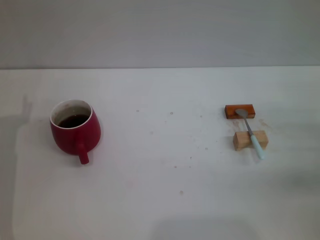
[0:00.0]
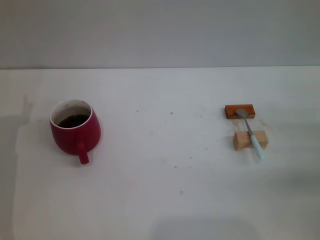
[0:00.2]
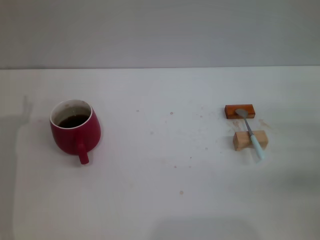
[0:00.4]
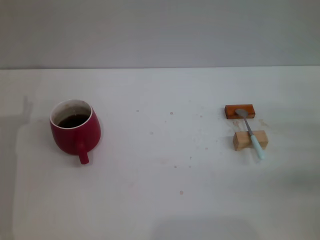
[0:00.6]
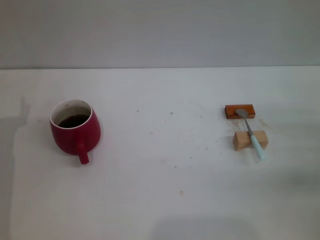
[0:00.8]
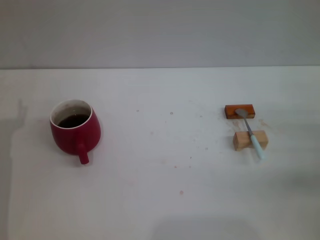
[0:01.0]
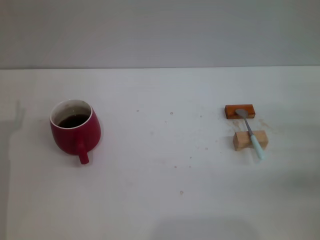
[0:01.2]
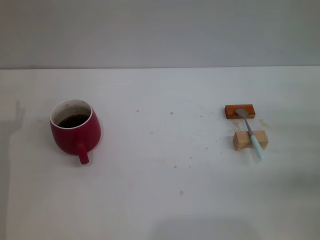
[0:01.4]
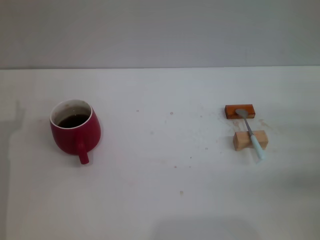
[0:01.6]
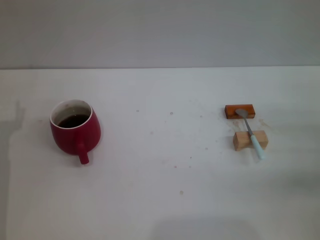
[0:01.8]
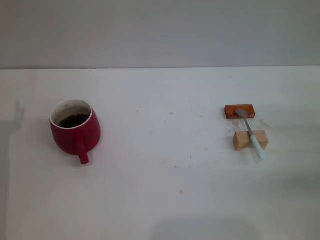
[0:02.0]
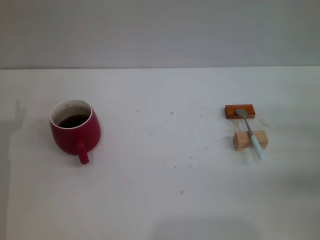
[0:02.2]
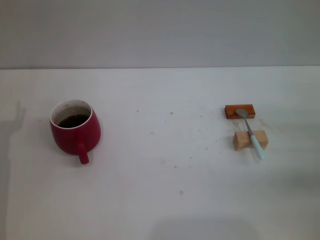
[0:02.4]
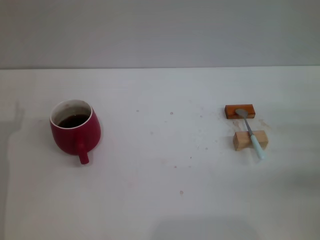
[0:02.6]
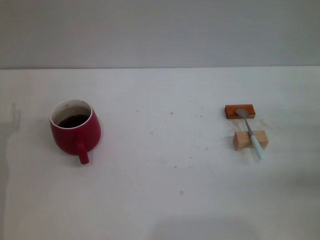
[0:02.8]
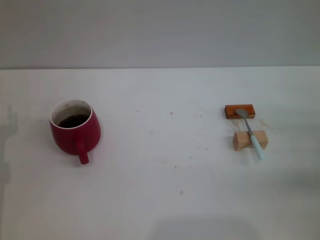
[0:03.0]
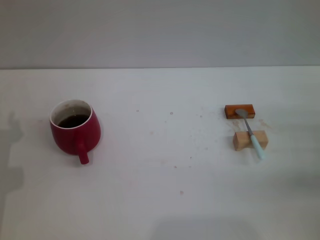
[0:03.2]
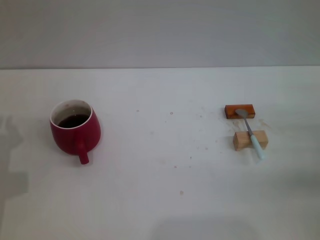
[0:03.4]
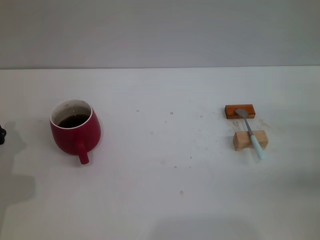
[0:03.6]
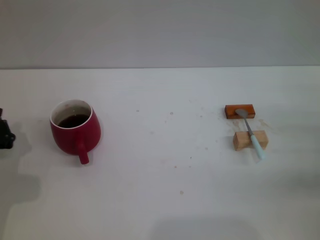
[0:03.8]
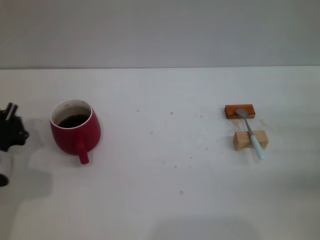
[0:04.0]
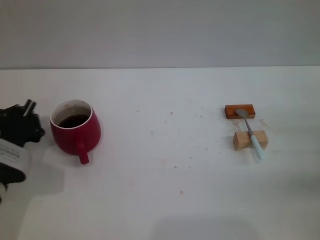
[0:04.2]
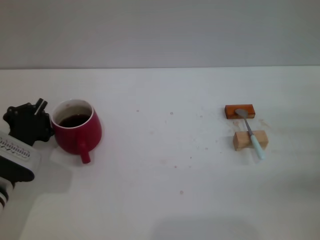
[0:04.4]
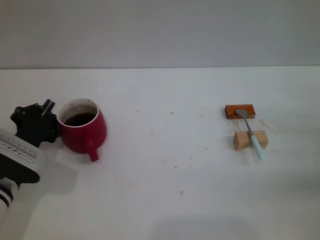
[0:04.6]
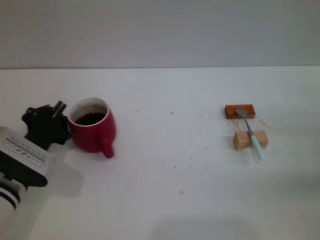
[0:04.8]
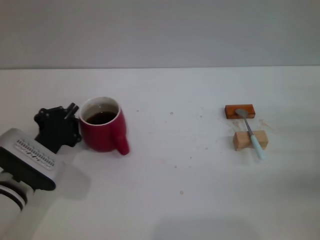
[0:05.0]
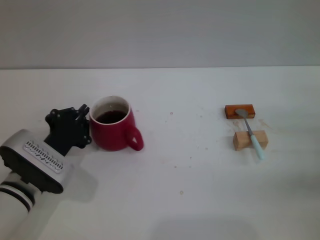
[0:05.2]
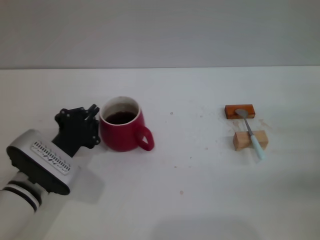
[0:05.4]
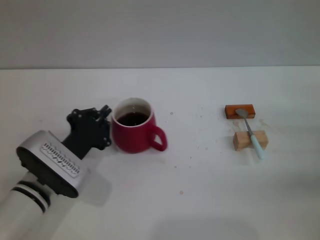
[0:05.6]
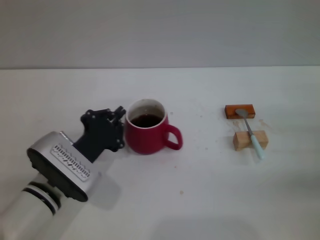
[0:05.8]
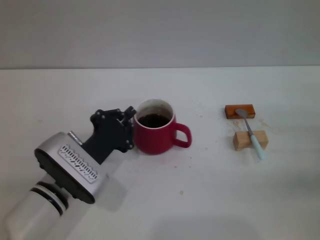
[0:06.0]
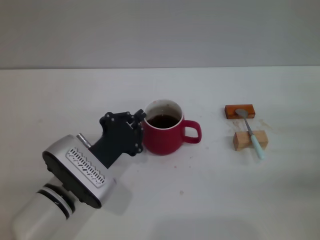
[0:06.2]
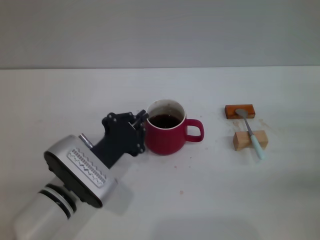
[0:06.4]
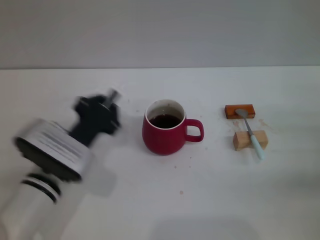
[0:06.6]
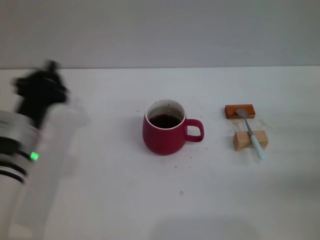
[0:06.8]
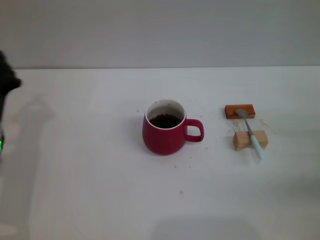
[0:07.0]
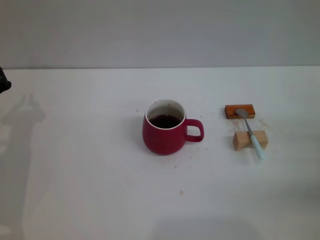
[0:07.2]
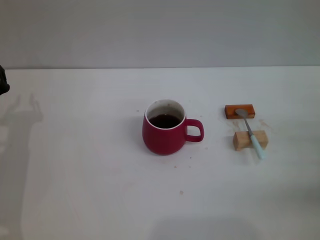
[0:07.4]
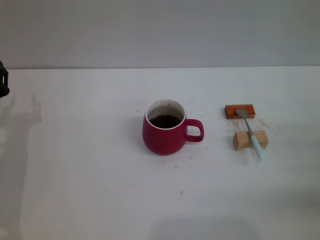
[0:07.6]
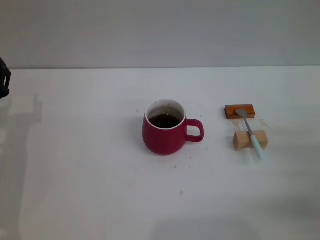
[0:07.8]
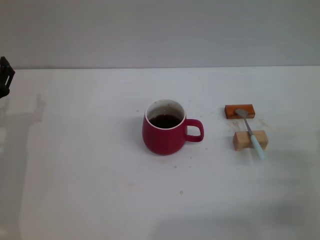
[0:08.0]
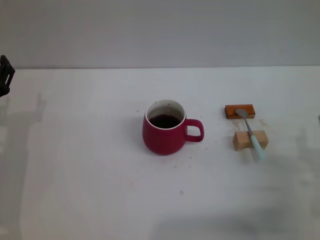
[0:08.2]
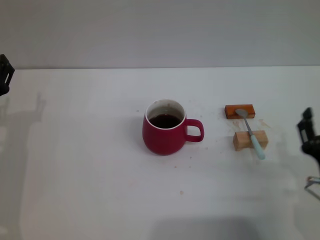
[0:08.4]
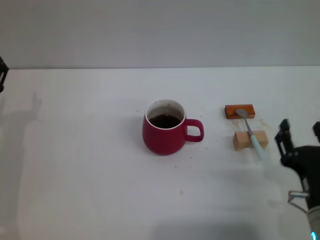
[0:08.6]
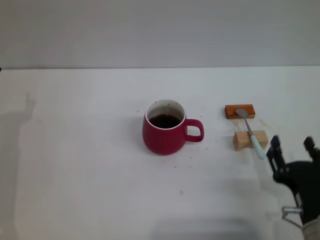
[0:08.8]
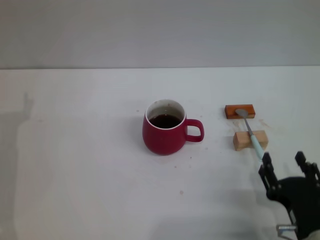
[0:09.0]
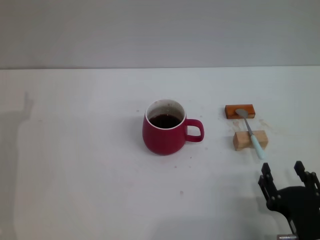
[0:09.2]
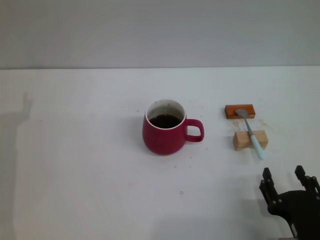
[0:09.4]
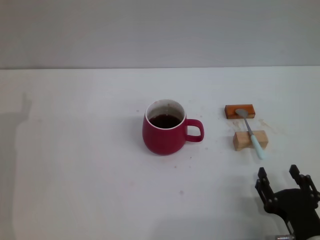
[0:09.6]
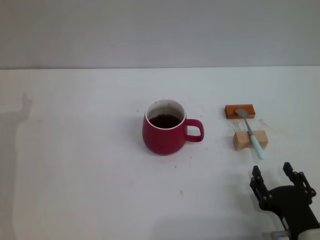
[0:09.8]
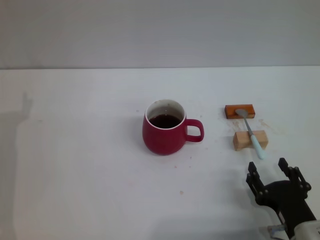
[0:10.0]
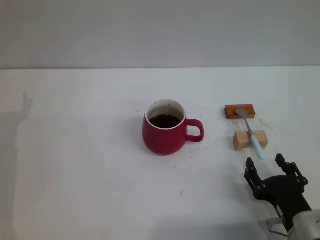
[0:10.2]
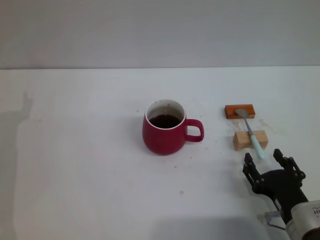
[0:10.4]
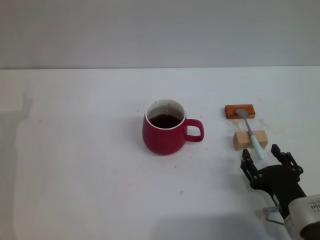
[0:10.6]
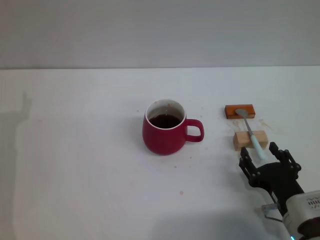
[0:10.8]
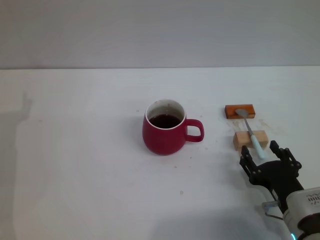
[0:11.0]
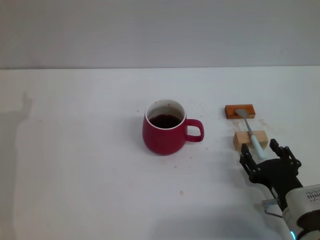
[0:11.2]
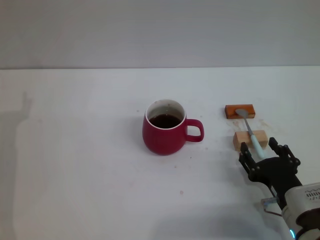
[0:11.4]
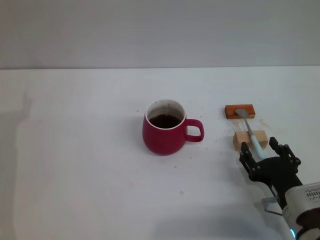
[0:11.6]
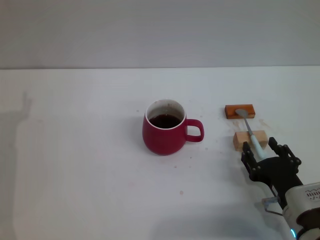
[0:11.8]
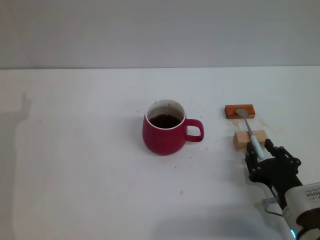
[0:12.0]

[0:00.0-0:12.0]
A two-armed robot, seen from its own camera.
Task of the whole recording: Move the red cup to the center, lift the blue spoon, stir it three times in the cup, and put the spoon into the cup.
Step, 0:00.0 to 0:06.6: Move the cup with coffee to the center of view with the left gripper.
0:03.0 to 0:04.4: The left gripper heads to the right, covering about 5 cm, and closes up.
0:04.4 to 0:06.0: The left gripper travels to the right by about 10 cm.
0:06.0 to 0:07.6: The left gripper is displaced to the left by about 10 cm, and opens its fingers.
0:07.6 to 0:09.0: The right gripper heads to the left and backward, covering some 20 cm.
0:09.0 to 0:10.4: The grippers stay close to where they were, moving slightly.
0:10.4 to 0:12.0: The grippers stay close to where they were, moving slightly.

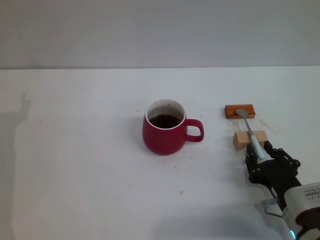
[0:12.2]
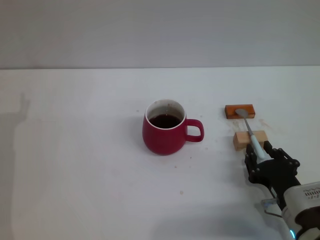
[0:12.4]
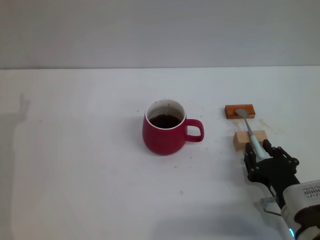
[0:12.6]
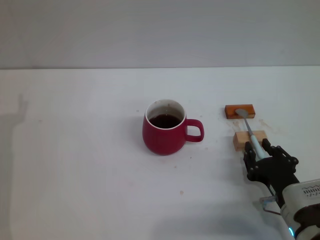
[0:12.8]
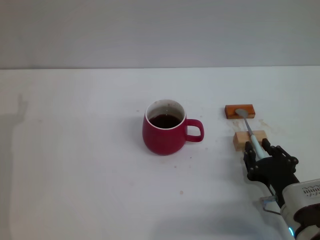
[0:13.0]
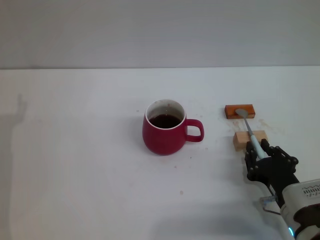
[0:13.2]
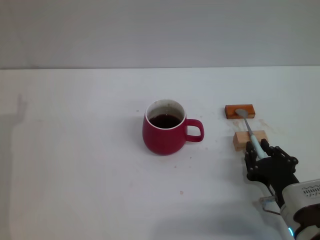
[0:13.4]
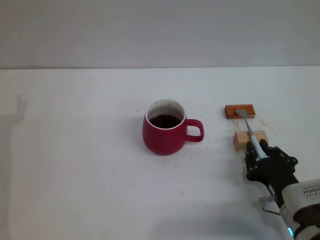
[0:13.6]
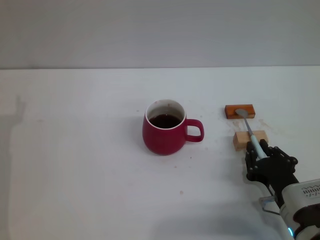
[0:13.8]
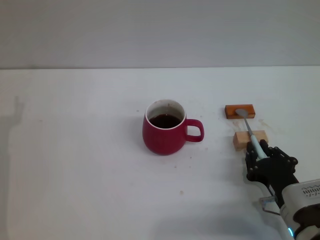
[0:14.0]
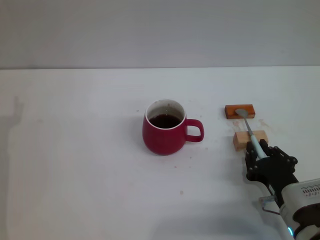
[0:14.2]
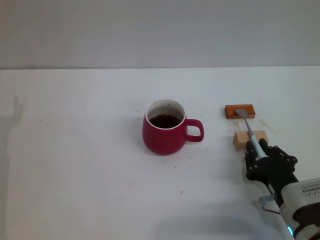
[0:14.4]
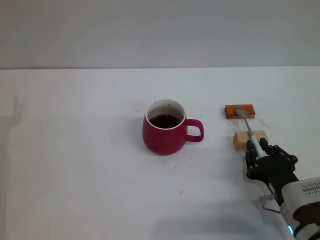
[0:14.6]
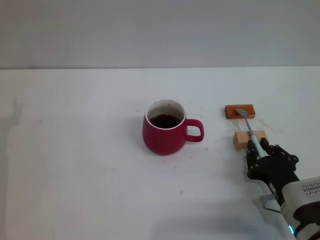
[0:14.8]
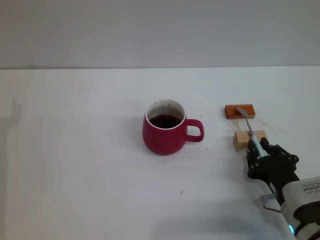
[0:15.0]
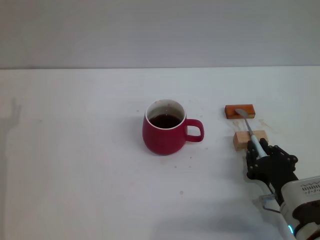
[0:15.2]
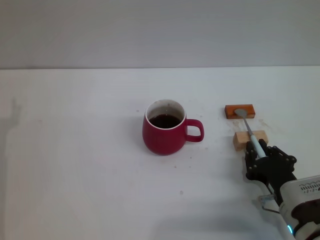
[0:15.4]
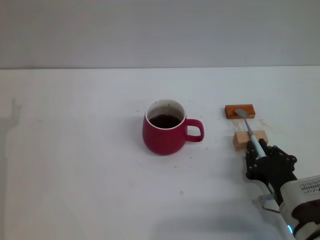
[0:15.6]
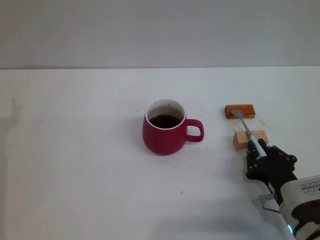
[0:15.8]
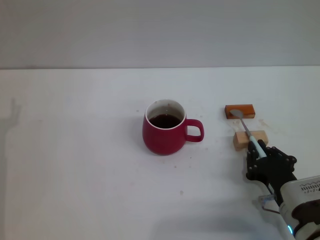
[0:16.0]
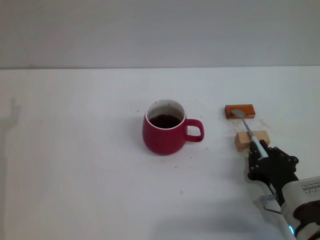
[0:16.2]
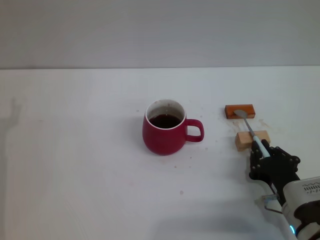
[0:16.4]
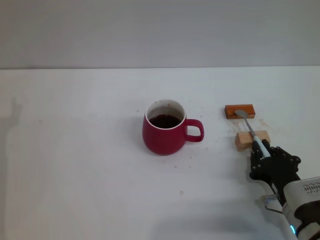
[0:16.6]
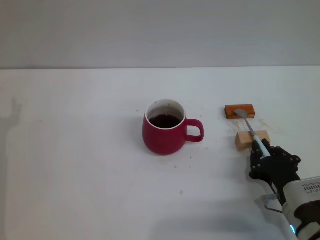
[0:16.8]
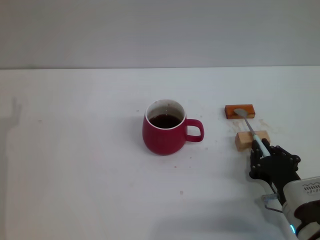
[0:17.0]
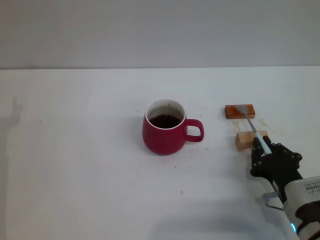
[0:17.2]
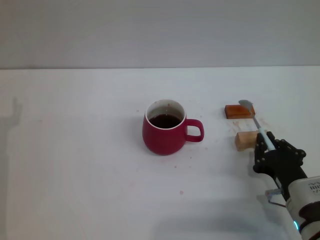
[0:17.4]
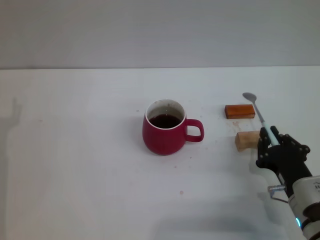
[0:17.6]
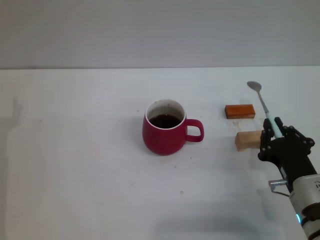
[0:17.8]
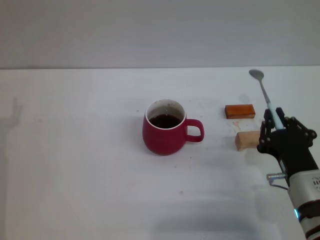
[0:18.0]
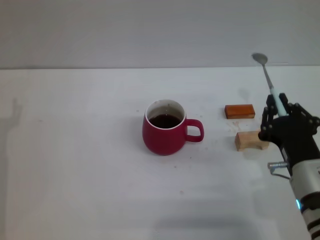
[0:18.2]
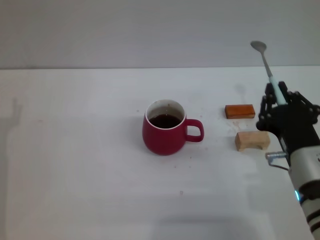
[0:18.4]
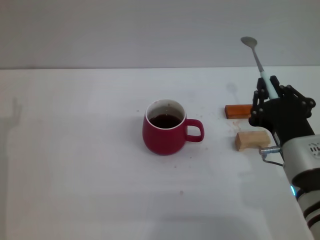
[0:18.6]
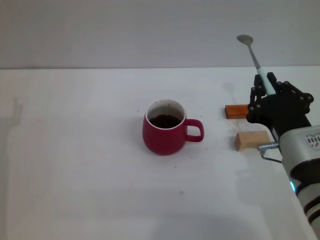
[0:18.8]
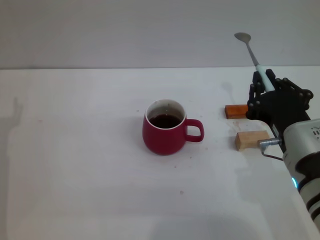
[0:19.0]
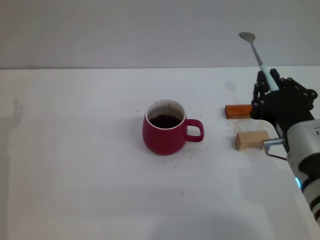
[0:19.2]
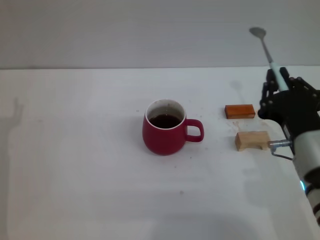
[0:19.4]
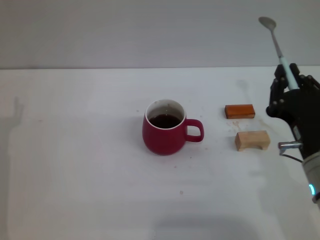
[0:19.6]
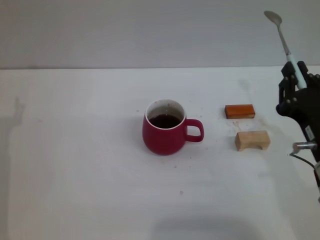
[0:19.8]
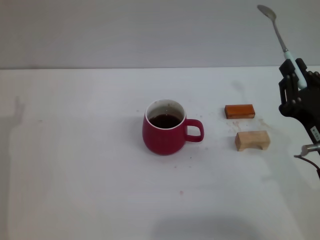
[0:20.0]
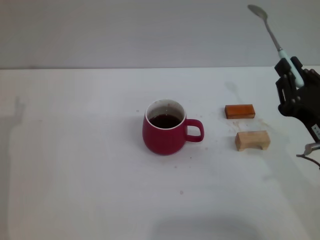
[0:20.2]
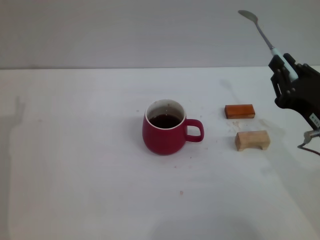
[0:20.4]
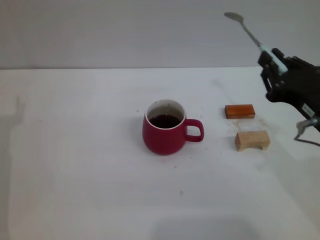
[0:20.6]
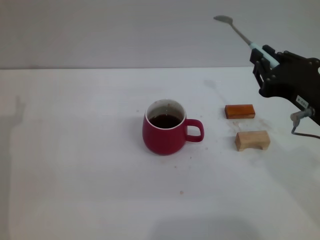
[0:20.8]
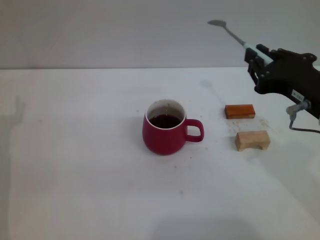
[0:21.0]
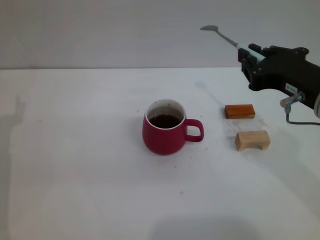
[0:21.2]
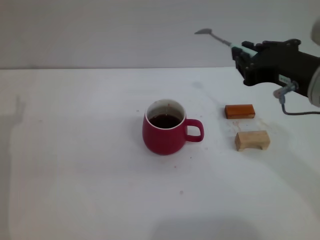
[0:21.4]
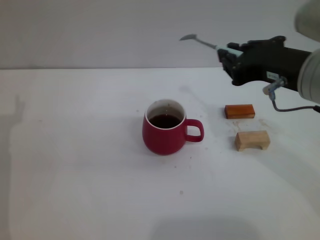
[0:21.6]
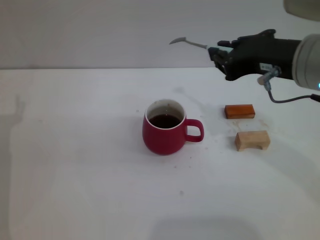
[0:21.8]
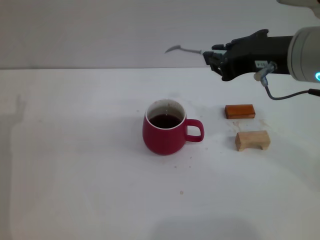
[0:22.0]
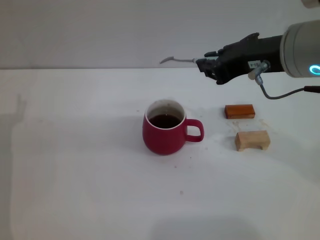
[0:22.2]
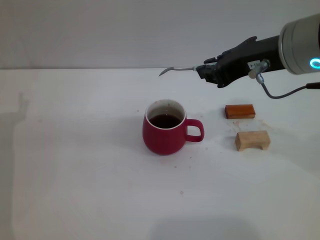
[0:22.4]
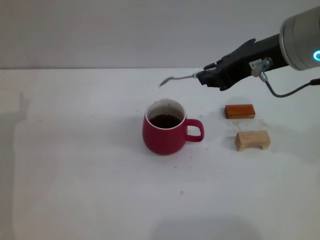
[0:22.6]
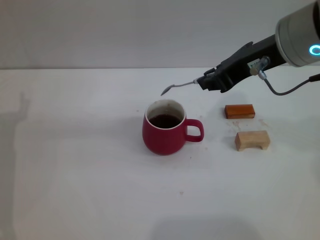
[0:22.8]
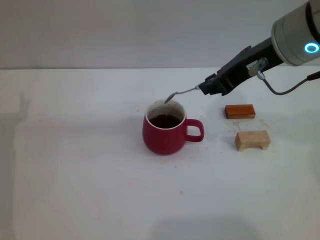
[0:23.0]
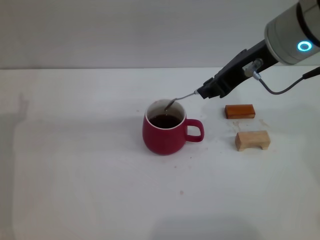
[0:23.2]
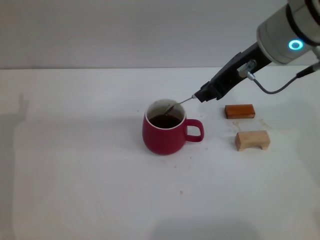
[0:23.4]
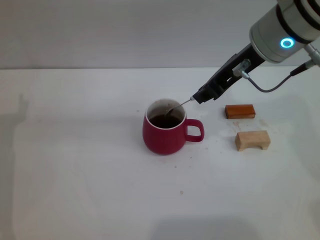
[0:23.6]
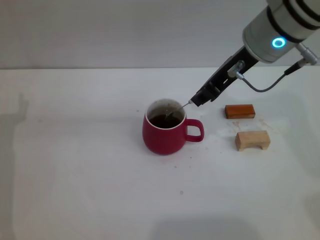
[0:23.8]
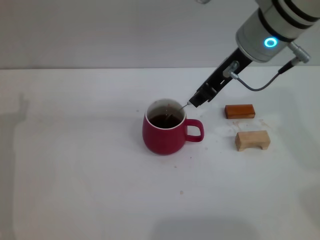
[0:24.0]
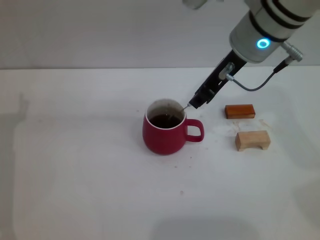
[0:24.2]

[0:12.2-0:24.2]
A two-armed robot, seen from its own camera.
Task of the whole recording: Move the red cup to the center, lift the blue spoon, stir it three times in the cup, and put the spoon into the cup.
Step, 0:12.2 to 0:19.2: Pick up the spoon with the right gripper.
0:12.2 to 0:13.8: Both grippers stay about where they are.
0:13.8 to 0:16.6: Neither gripper changes place.
0:16.6 to 0:18.2: The right gripper heads upward, covering approximately 5 cm.
0:19.8 to 0:21.2: The right gripper moves upward, approximately 10 cm.
0:21.2 to 0:22.6: The right gripper goes roughly 10 cm upward and forward.
0:22.6 to 0:24.2: The right gripper travels forward by about 10 cm.
